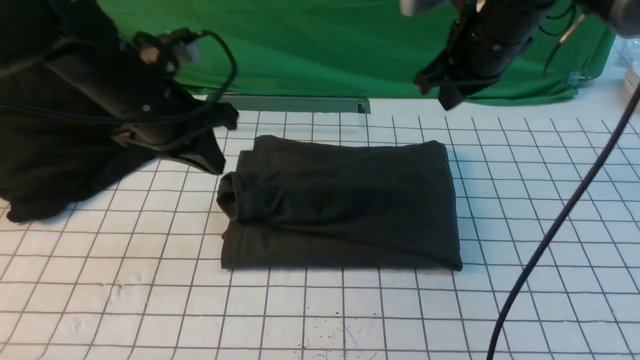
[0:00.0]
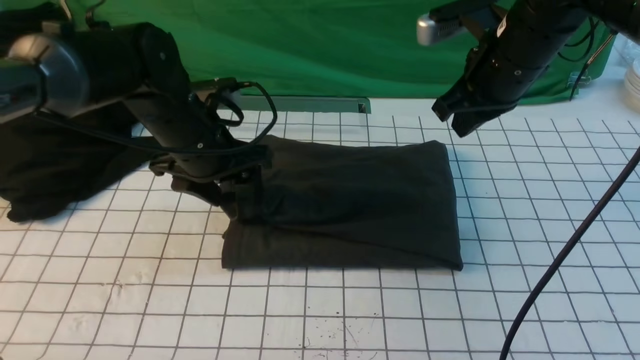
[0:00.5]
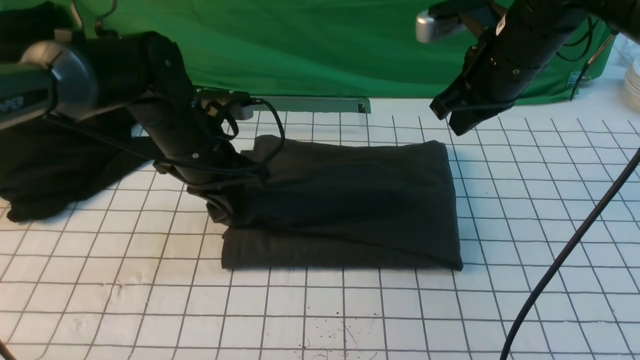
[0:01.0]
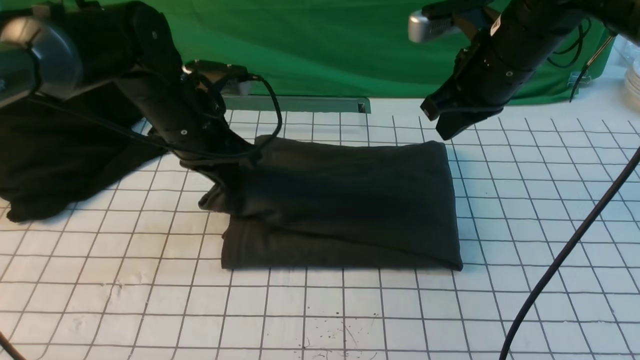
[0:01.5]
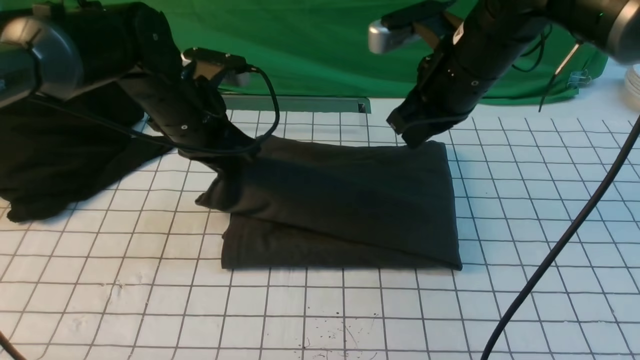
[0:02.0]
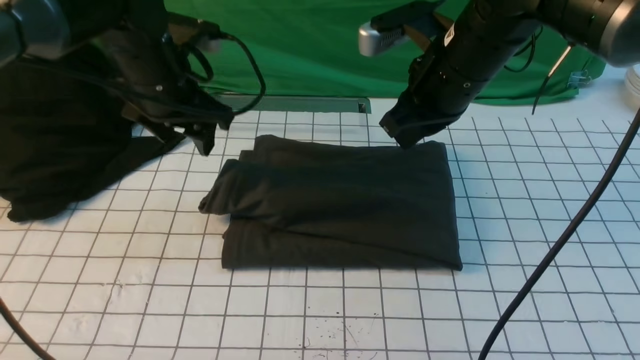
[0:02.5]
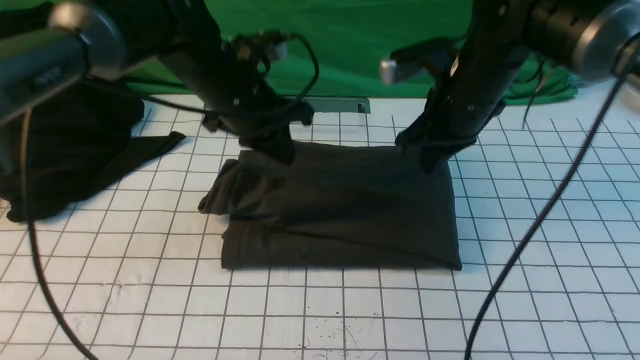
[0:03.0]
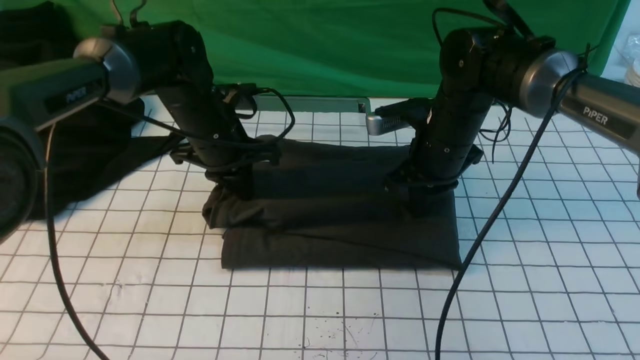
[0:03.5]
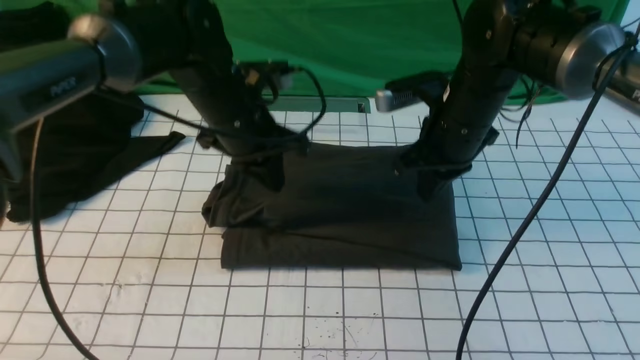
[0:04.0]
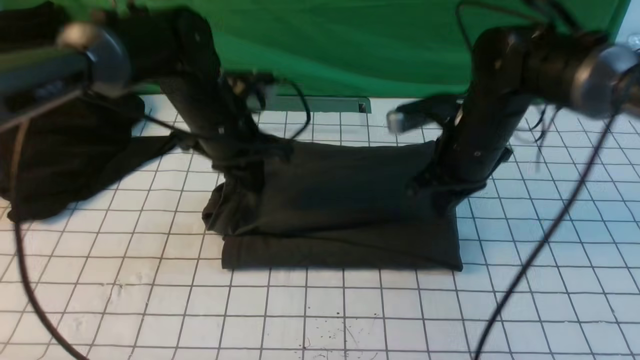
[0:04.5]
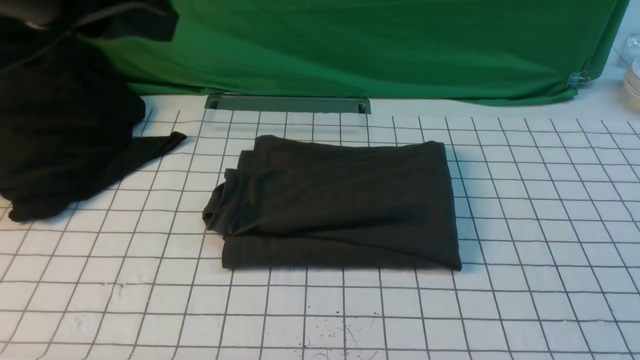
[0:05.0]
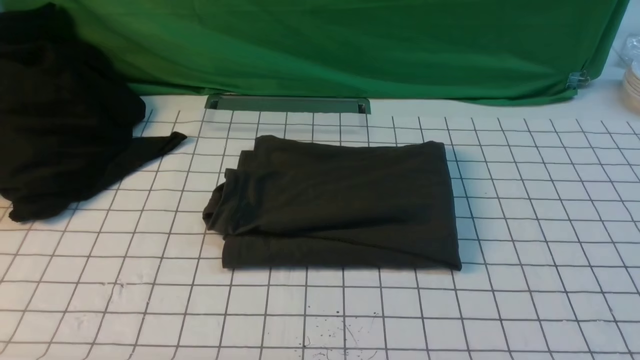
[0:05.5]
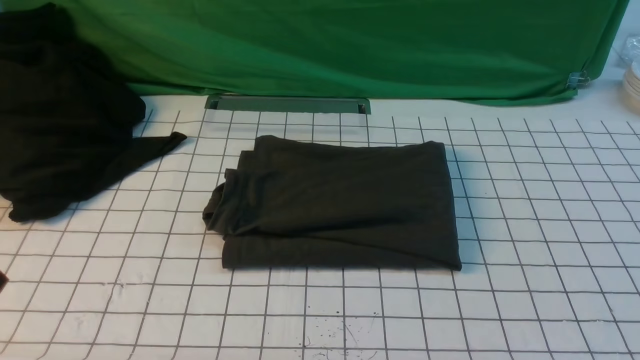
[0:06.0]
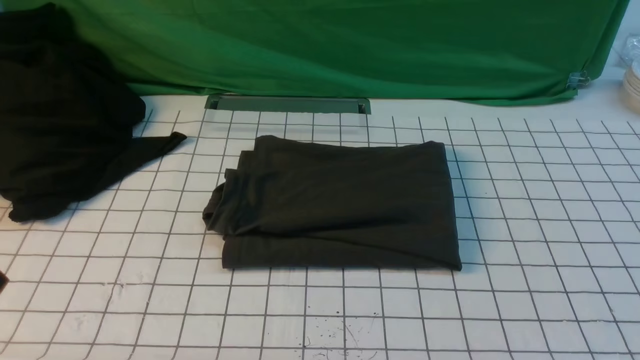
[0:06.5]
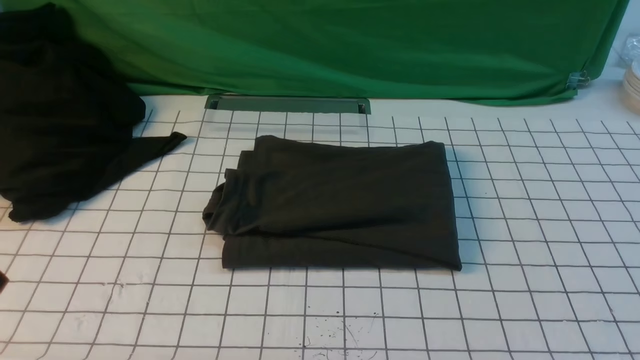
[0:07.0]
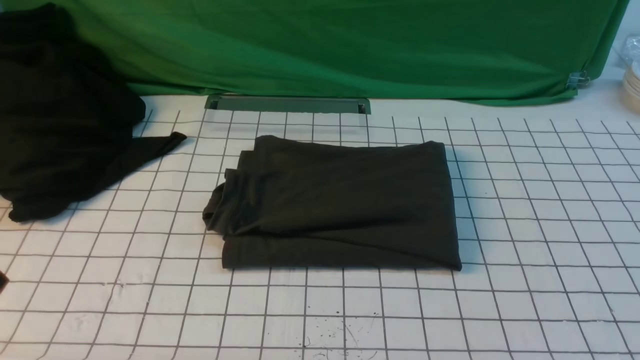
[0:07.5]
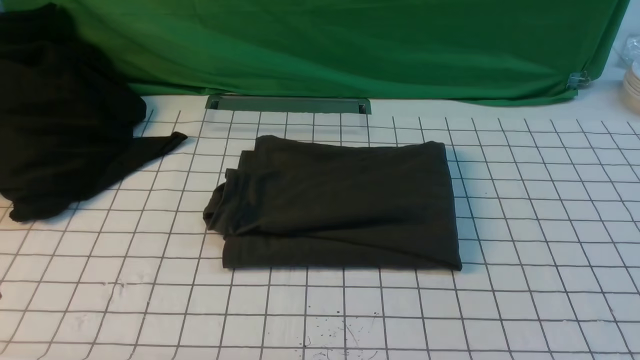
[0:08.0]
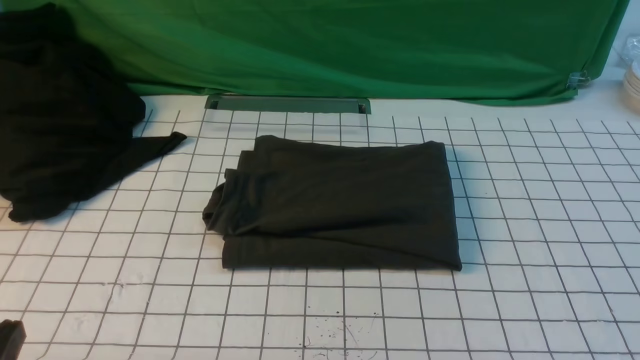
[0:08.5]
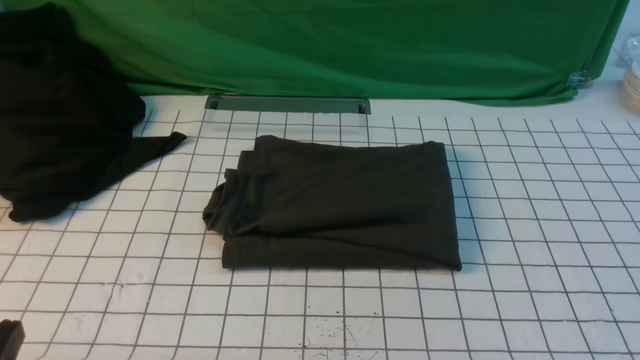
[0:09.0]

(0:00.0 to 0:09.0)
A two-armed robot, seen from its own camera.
0:00.0 - 0:02.0: The left gripper opens and closes again.
0:02.0 - 0:04.5: The left gripper moves up and down over some 5 cm, changing direction 2 times, and closes.
0:04.5 - 0:07.0: The left gripper shifts approximately 35 cm backward, while the right gripper moves backward and to the right, roughly 40 cm.

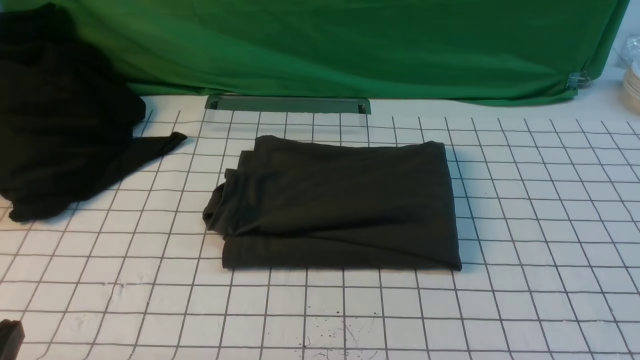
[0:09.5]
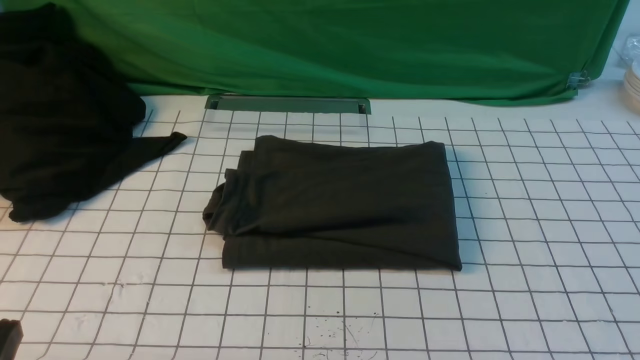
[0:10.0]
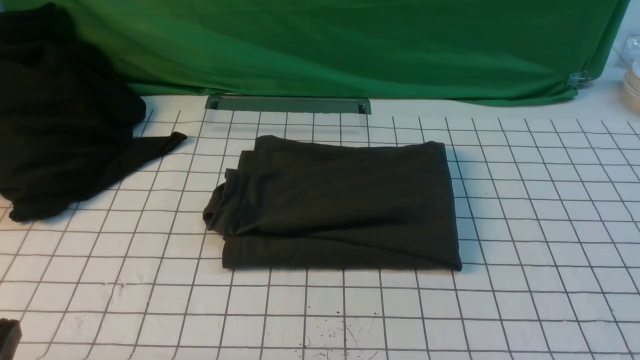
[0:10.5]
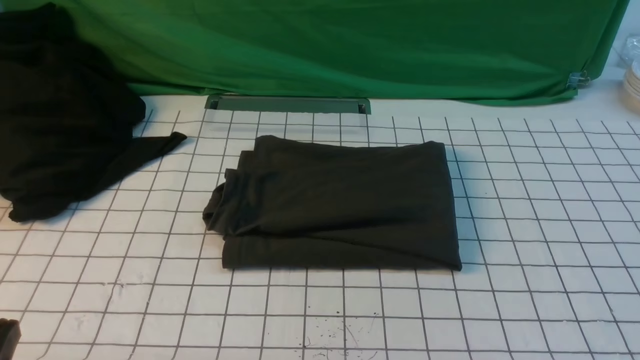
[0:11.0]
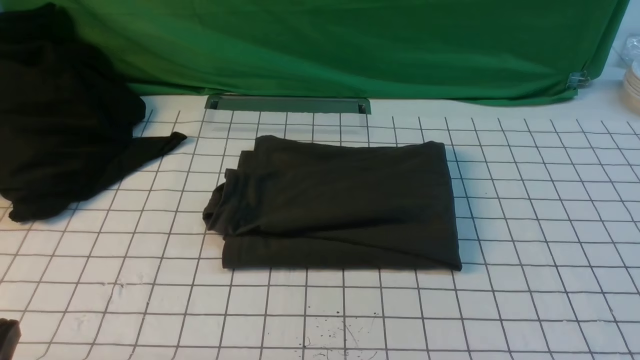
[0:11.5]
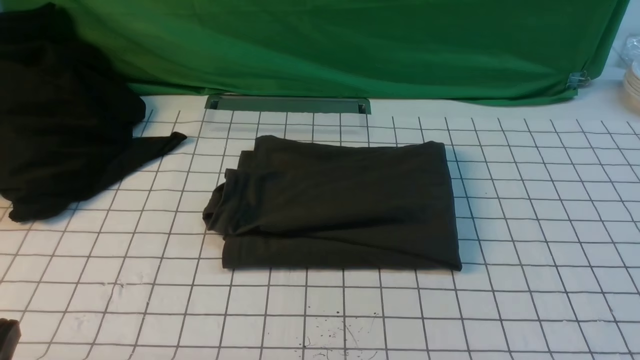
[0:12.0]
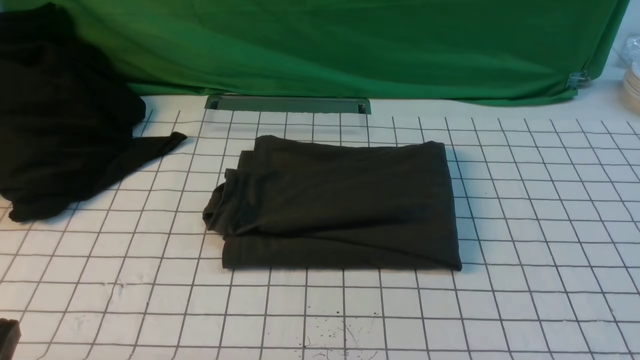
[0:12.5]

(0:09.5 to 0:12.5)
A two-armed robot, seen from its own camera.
0:11.0 - 0:12.5: Both grippers stay about where they are.

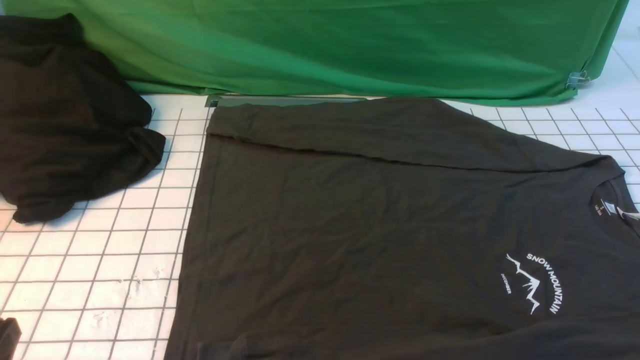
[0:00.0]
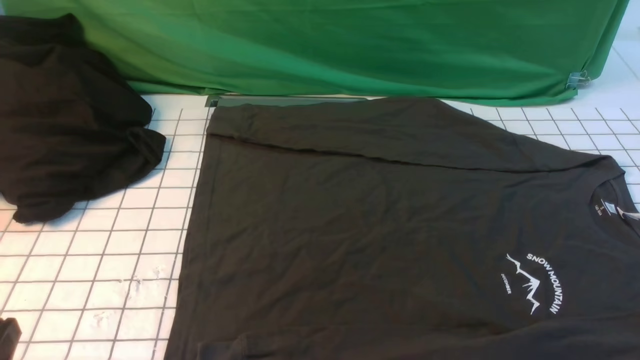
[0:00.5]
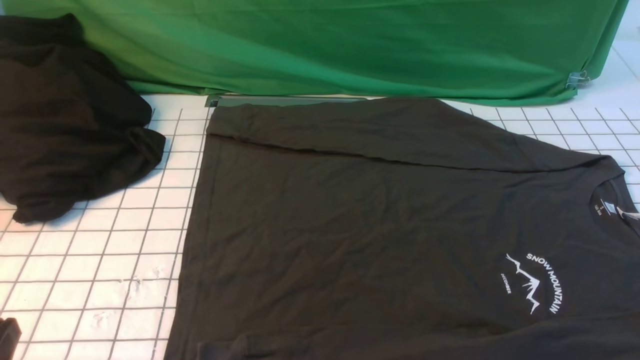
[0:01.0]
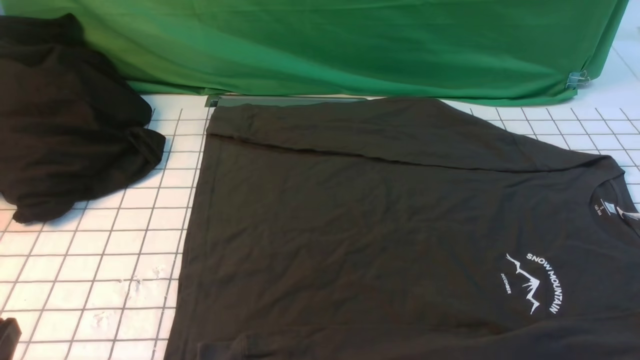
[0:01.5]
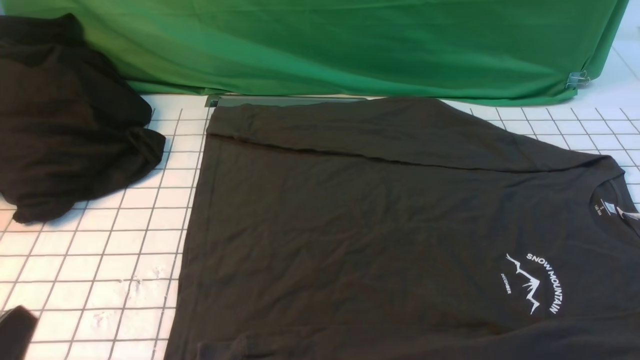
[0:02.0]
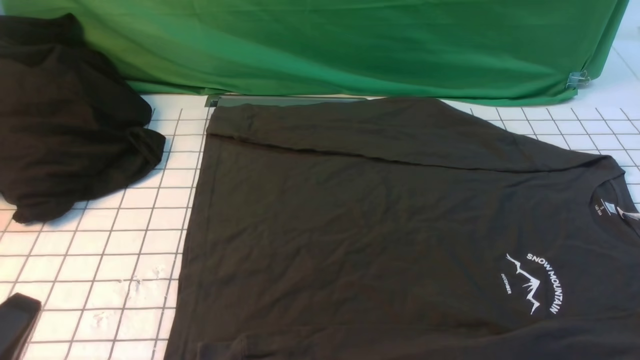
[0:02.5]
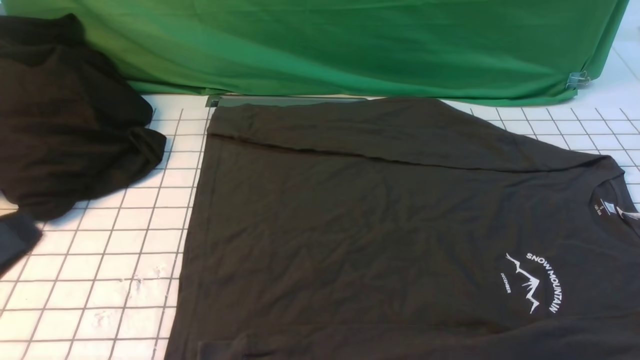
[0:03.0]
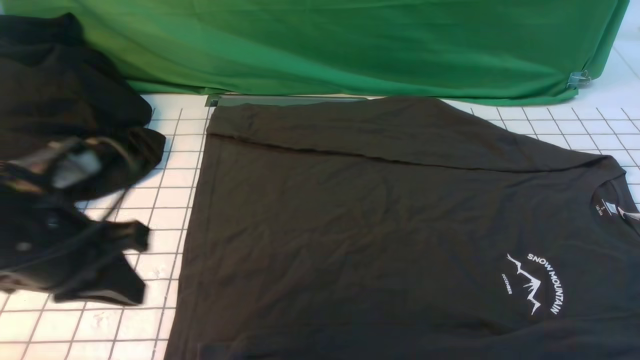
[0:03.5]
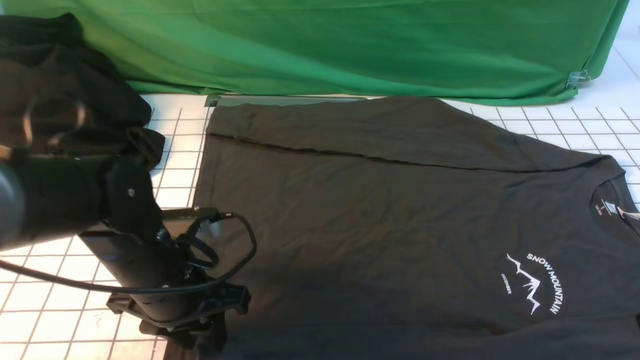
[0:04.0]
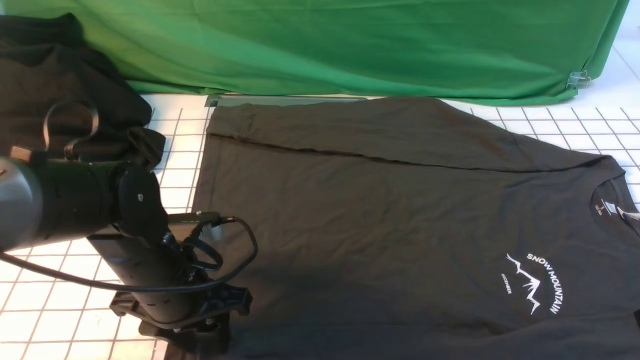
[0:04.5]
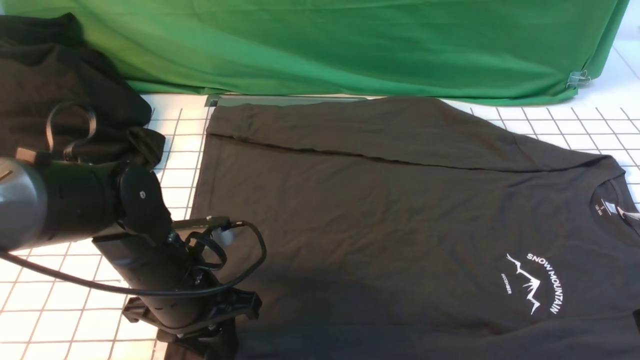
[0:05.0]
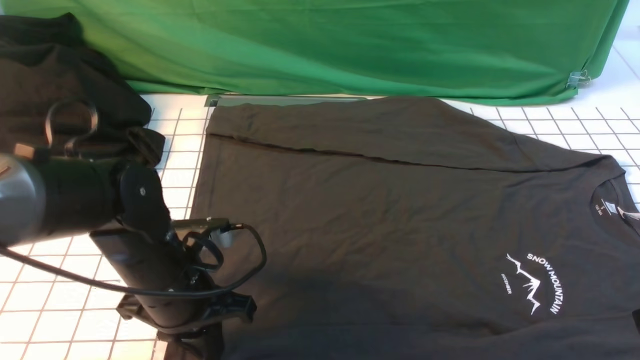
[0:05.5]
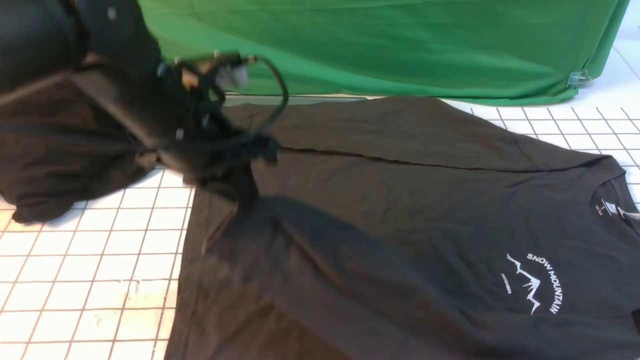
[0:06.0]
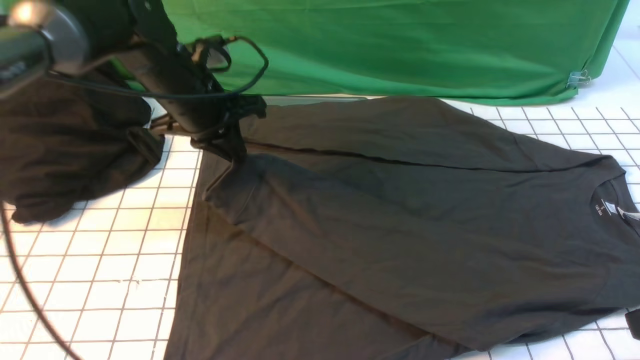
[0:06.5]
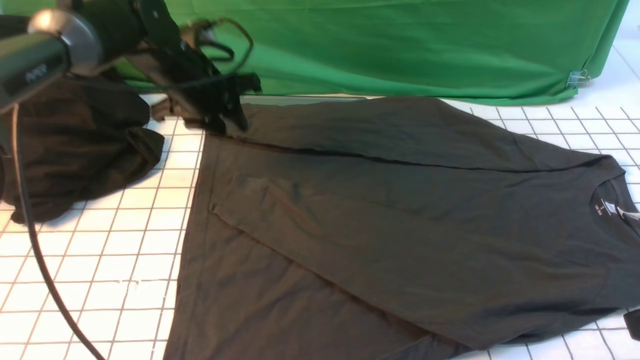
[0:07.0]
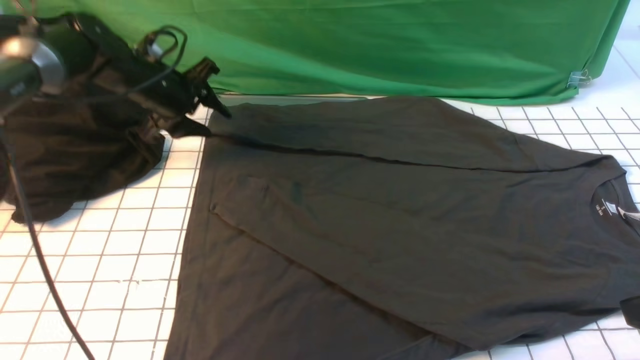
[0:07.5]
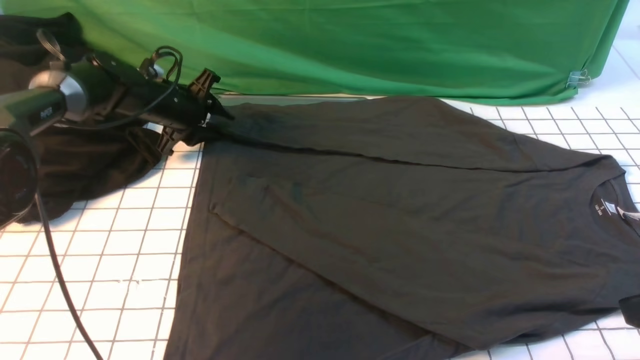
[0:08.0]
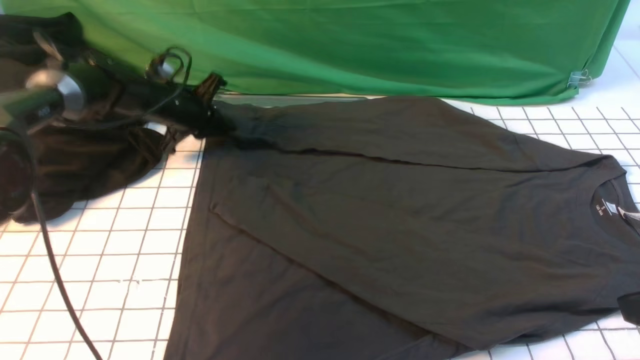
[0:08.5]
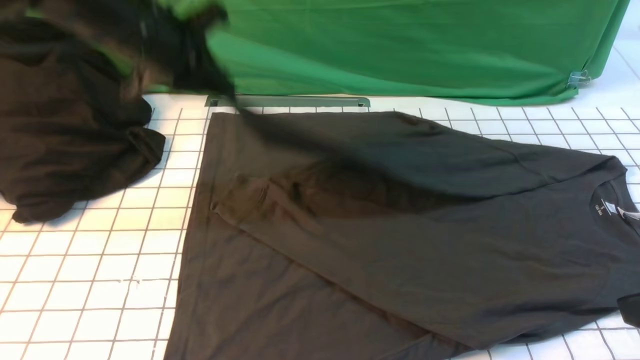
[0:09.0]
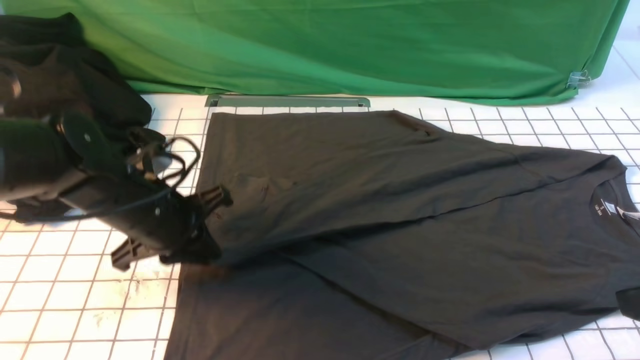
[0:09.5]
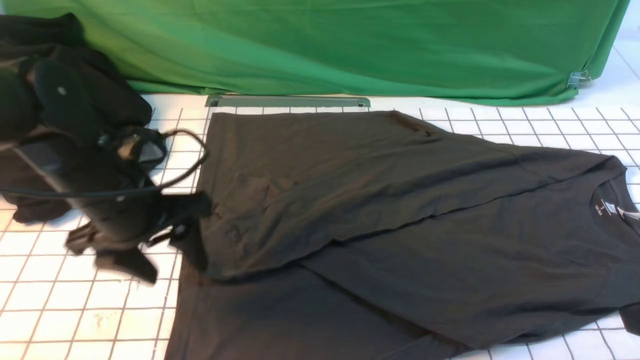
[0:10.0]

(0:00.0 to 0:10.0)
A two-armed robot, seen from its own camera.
Step, 0:00.0 - 0:05.5: use the left arm to clamp the cuff closest to it.
Step, 0:06.0 - 0:06.5: use the left arm to drag and place the cuff at the centered position on the left edge of the fabric.
Step, 0:07.0 - 0:08.5: use the left arm to clamp the cuff farthest from it.
Step, 0:09.0 - 0:09.5: use the left arm to drag and drop the cuff onto the cuff closest to the left arm.
0:02.0 - 0:04.0: The left gripper travels forward and to the right by approximately 20 cm, and opens its fingers, while the right gripper goes about 15 cm upward and forward.
0:04.0 - 0:06.0: The left gripper heads upward and forward, covering about 15 cm, and closes up.
0:06.0 - 0:08.0: The left gripper moves forward, downward and to the left, approximately 25 cm, and opens up.
0:08.0 - 0:10.0: The left gripper heads backward, covering some 25 cm, and closes and opens again.
